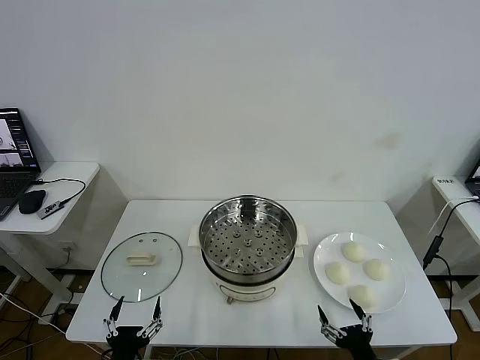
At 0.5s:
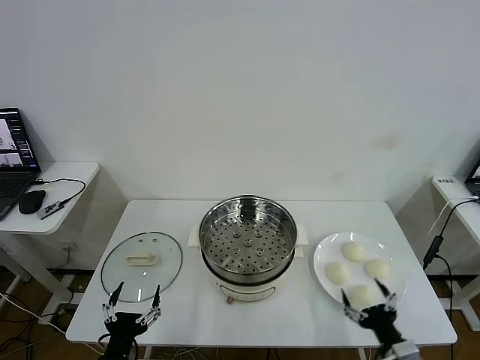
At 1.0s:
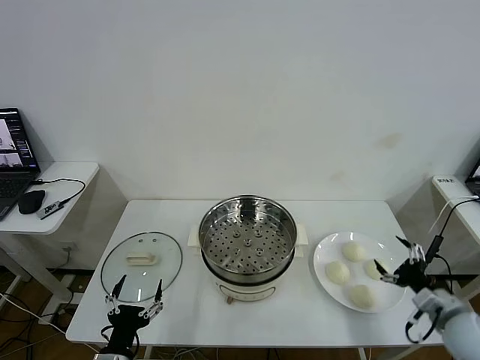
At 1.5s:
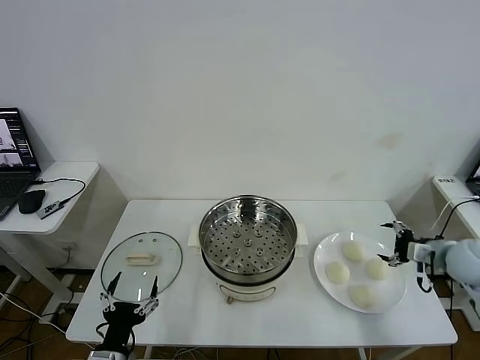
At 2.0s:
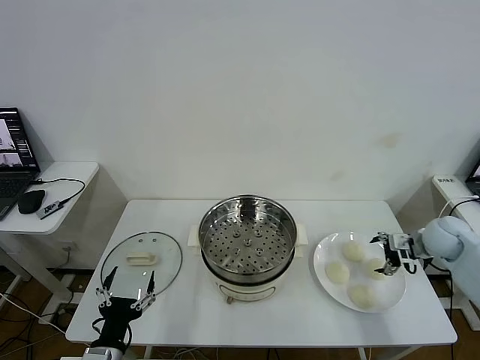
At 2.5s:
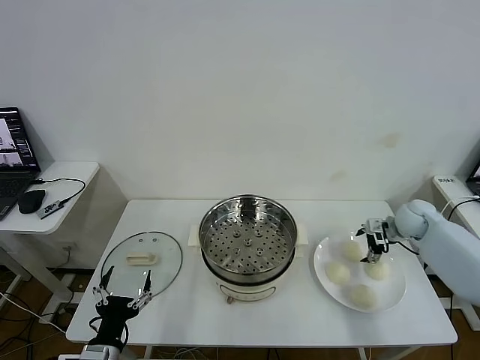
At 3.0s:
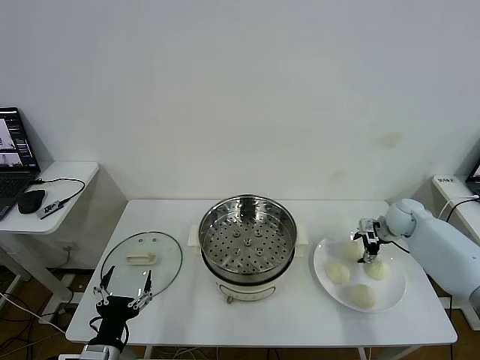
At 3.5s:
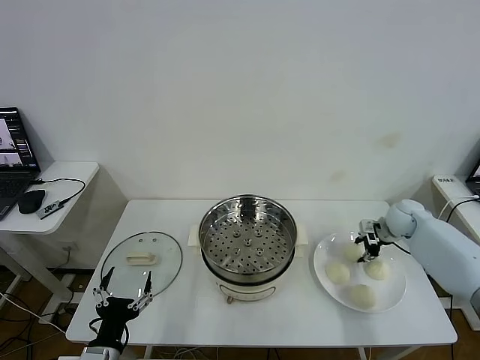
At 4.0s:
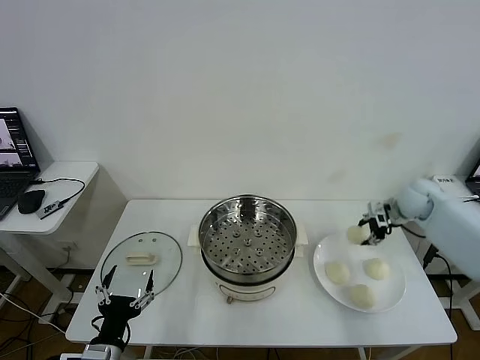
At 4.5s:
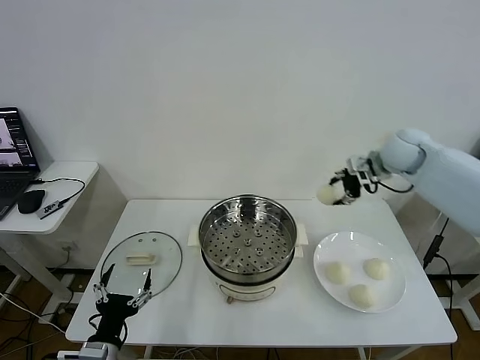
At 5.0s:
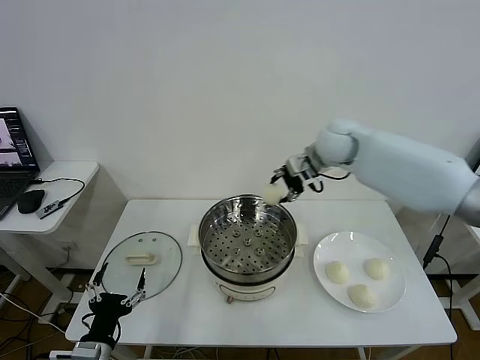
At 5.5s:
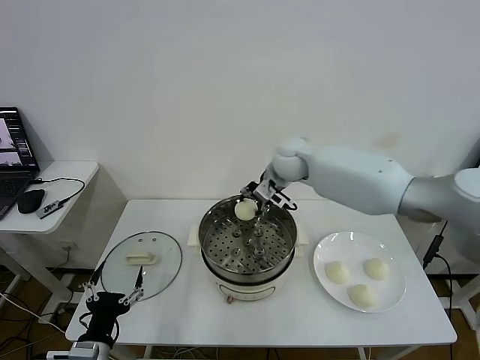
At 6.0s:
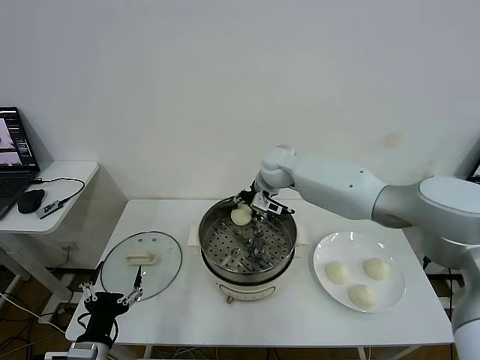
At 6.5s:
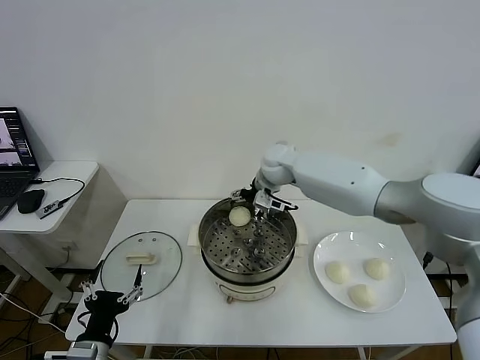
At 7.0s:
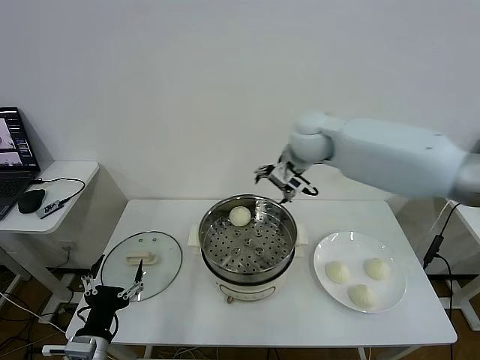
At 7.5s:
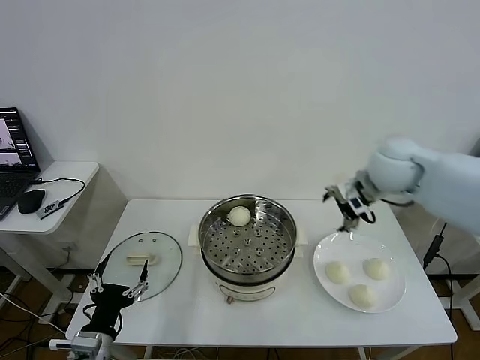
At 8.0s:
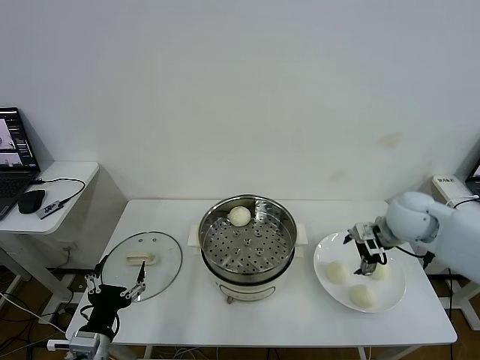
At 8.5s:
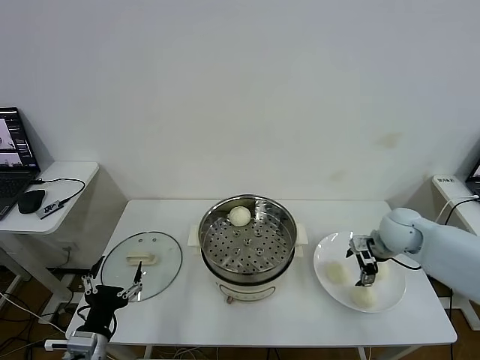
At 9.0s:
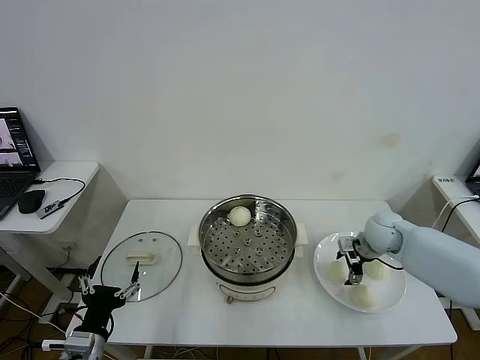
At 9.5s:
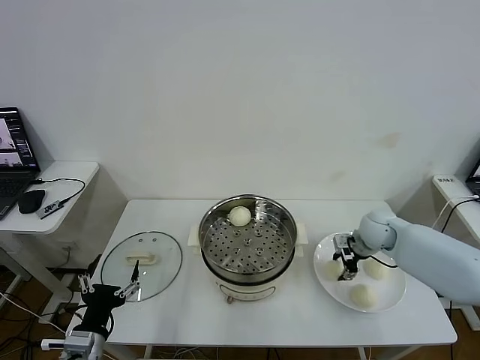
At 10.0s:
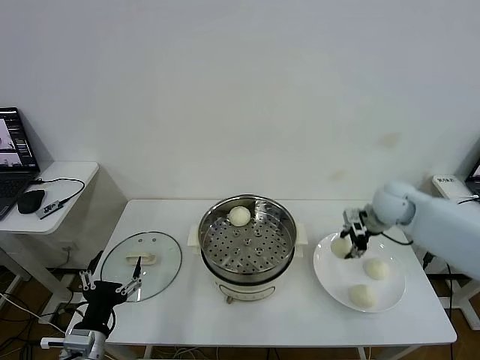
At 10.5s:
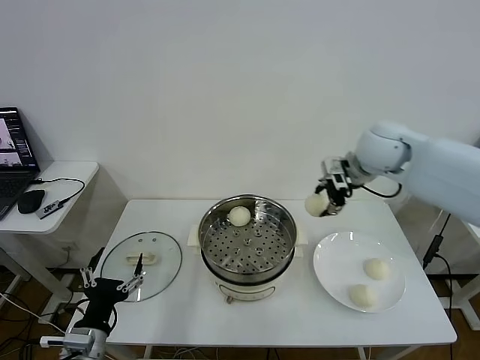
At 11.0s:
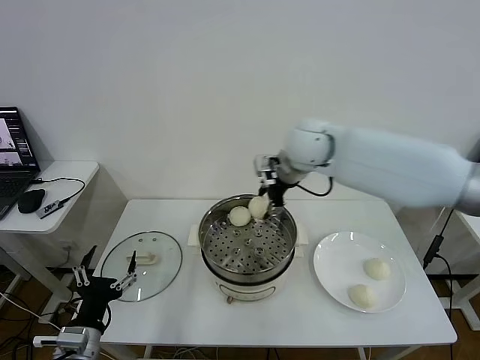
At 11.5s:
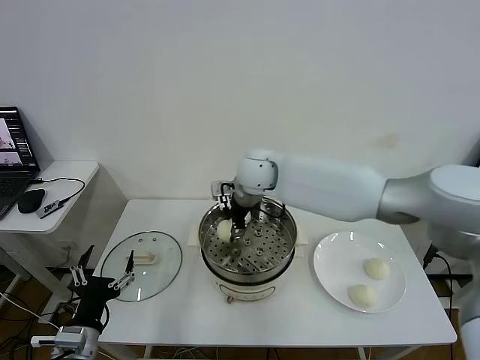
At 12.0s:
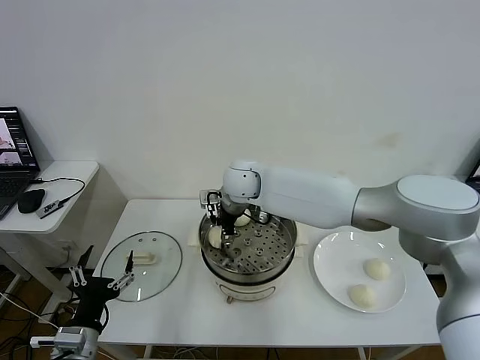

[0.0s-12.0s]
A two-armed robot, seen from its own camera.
Task of the whole recording: take steamed baozi put them in steamer then cover it.
Step, 0.0s to 3.0s: Grasp the baozi in the plate with right gripper.
Step, 3.5s to 6.0s: Place the baozi on the steamer with right gripper.
Step, 6.5s to 9.5s: Grasp the baozi in the plate with right gripper.
2.0s to 4.0s: The right gripper moves forward, some 10 cm, and closes.
4.0s to 6.0s: The right gripper shifts some 35 cm to the left.
6.0s to 8.0s: The right gripper moves to the right and backward, some 30 cm, and opens its fingers.
8.0s to 10.0s: The right gripper moves forward, about 5 cm, moves about 10 cm downward and comes back, and closes up.
10.0s to 12.0s: The right gripper travels to the left by about 35 cm.

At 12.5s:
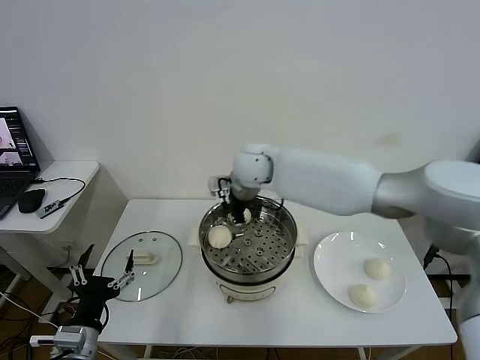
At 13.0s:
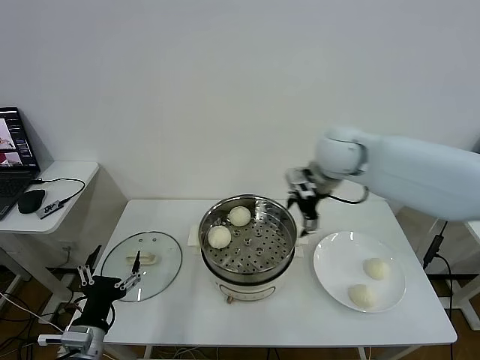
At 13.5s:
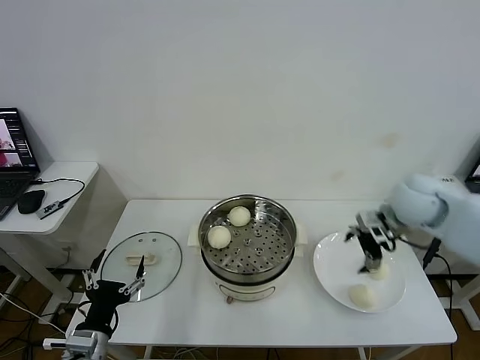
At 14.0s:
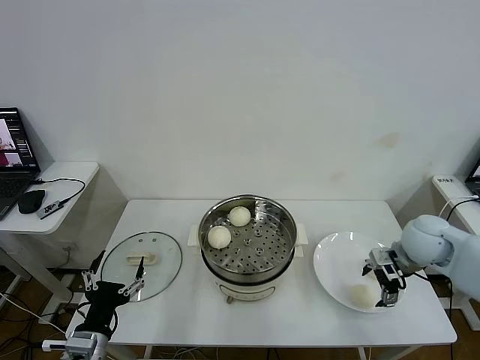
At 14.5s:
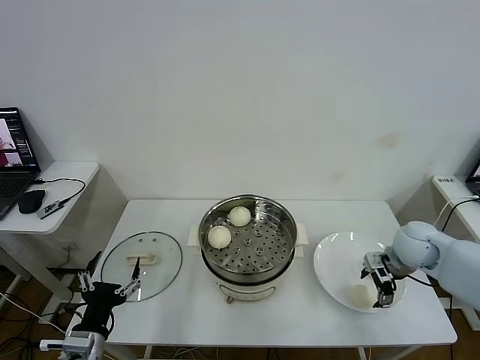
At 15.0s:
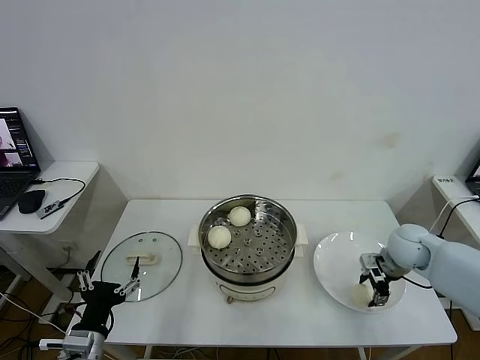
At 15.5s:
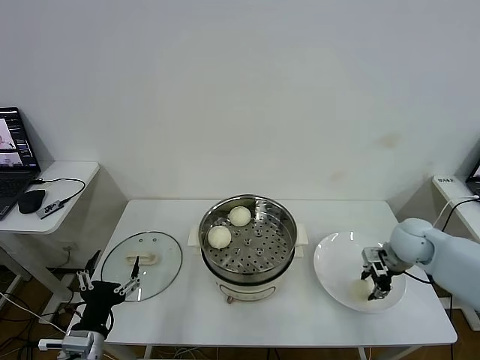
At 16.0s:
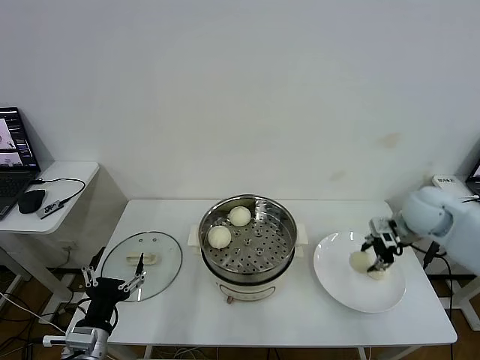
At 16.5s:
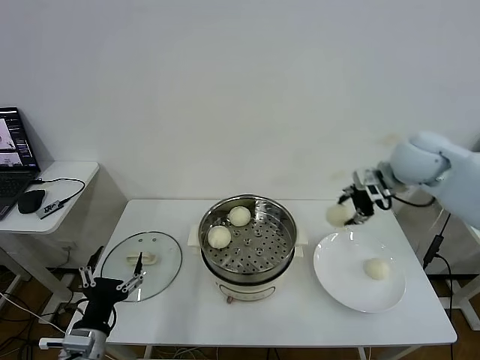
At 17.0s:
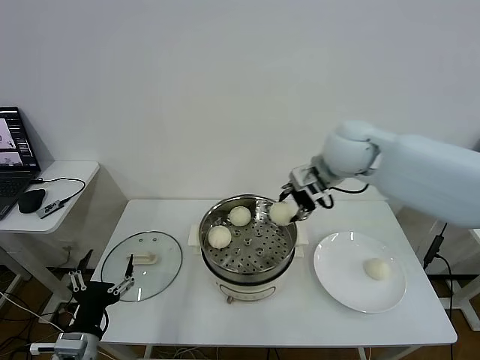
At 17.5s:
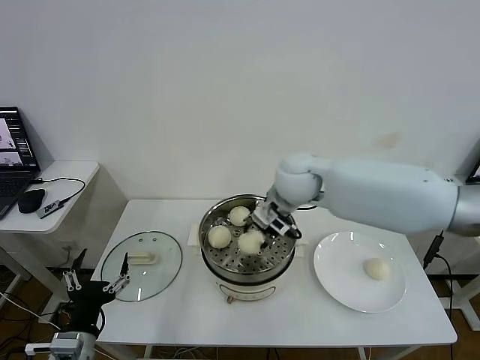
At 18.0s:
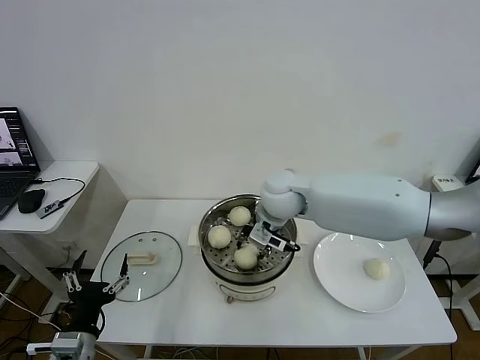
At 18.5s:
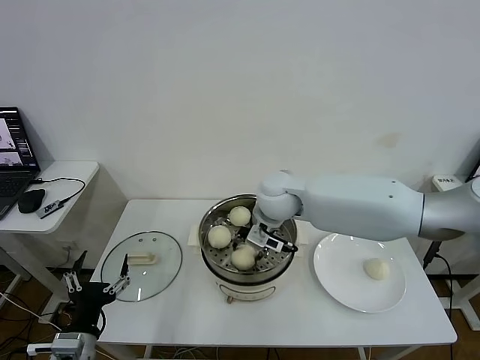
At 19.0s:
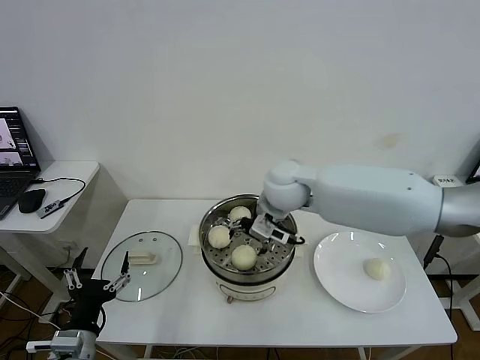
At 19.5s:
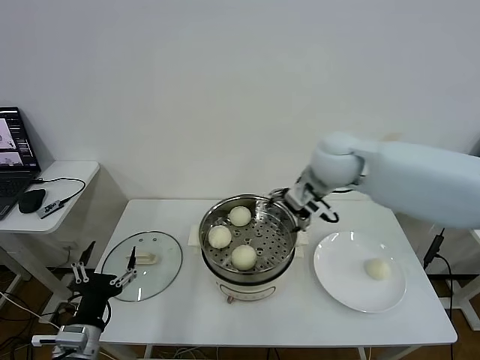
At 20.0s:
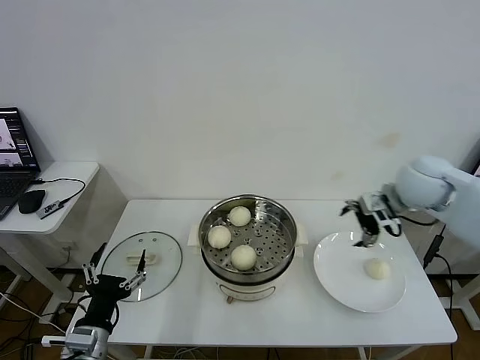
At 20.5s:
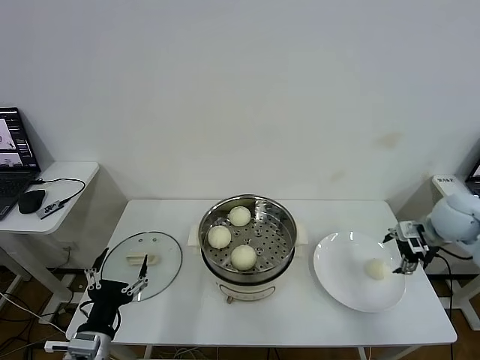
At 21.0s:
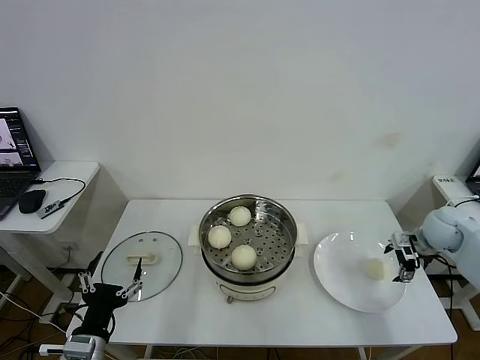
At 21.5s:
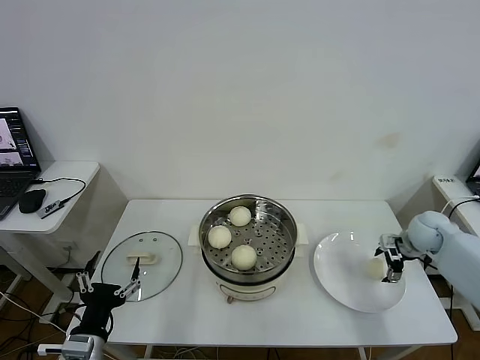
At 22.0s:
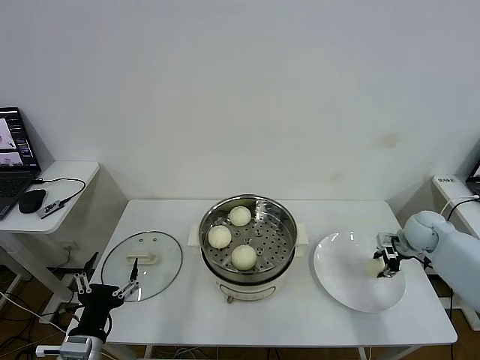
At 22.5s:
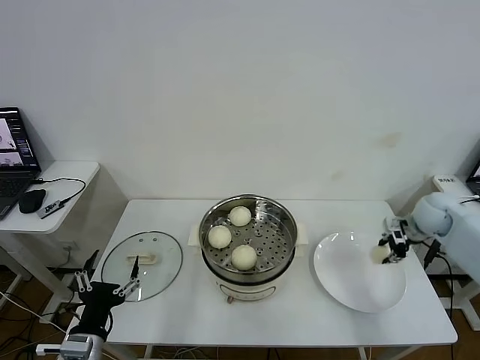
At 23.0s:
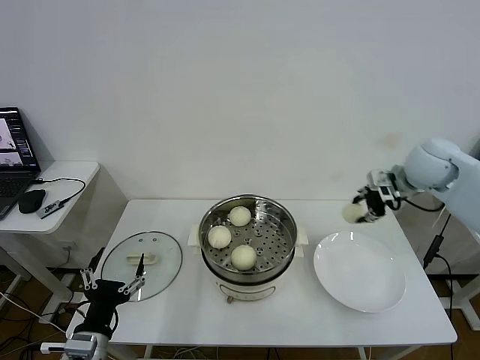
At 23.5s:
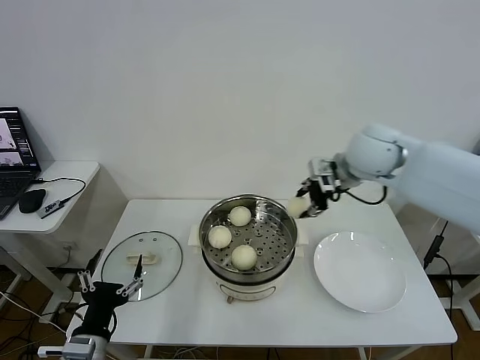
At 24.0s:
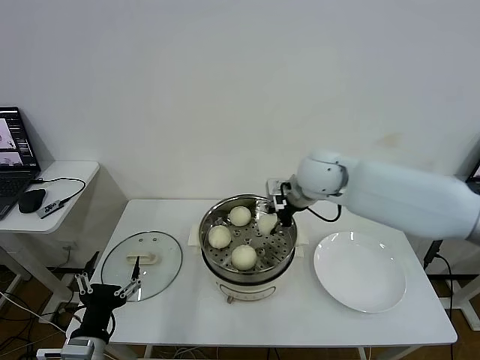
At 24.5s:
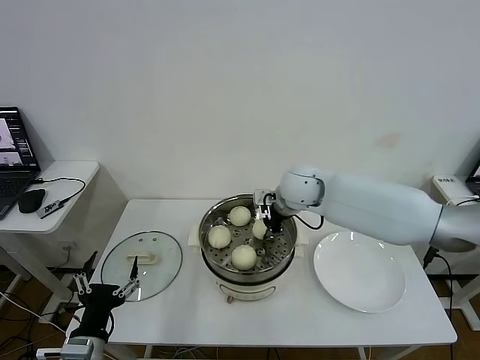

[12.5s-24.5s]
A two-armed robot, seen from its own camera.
Task of the whole recording: take steamed baozi put them in steamer then cover it.
Step, 12.5s to 15.0s: Grasp the baozi in the plate with right gripper.
Step, 15.5s to 18.5s: Place the baozi on the steamer with right gripper.
Step, 19.0s to 21.5s: Grasp the baozi in the plate with right gripper.
12.5s to 14.5s: The right gripper shifts about 35 cm to the right.
14.5s to 16.5s: The right gripper heads upward, covering about 20 cm, and closes.
16.5s to 18.5s: The right gripper is displaced to the left by some 25 cm.
18.5s to 20.5s: The right gripper travels to the right by roughly 35 cm, and opens.
20.5s to 22.5s: The right gripper moves forward, about 5 cm, and closes its fingers.
22.5s to 24.5s: The right gripper goes approximately 35 cm to the left.

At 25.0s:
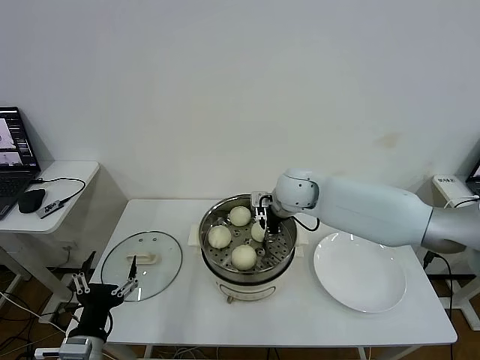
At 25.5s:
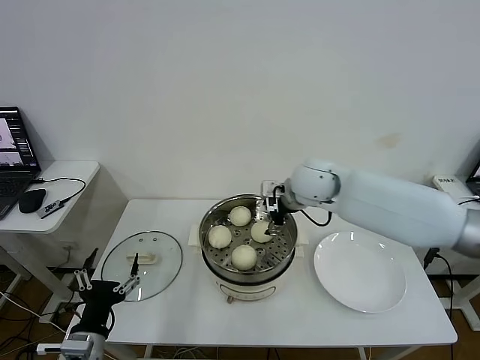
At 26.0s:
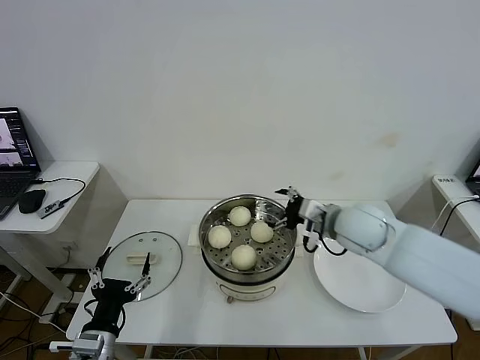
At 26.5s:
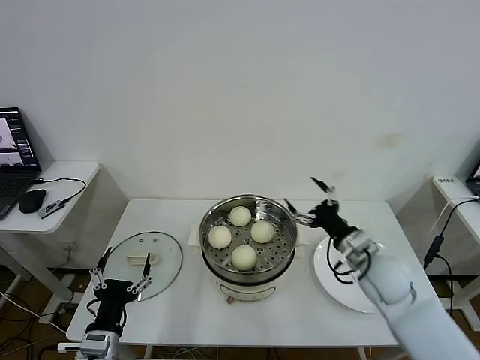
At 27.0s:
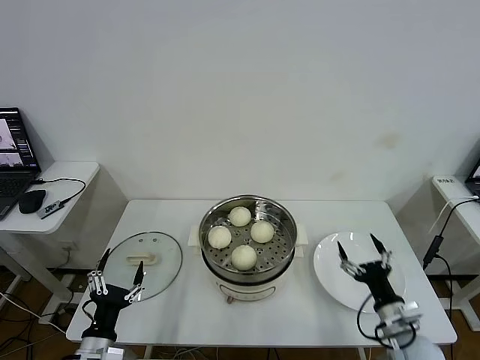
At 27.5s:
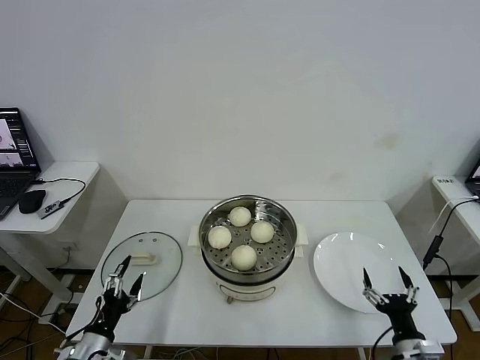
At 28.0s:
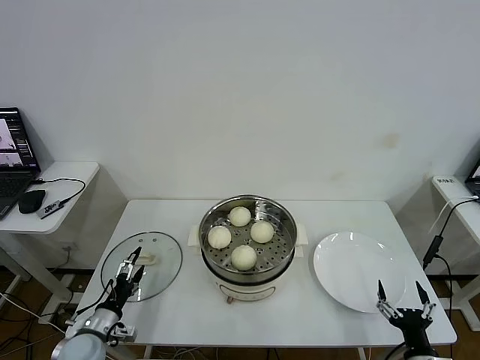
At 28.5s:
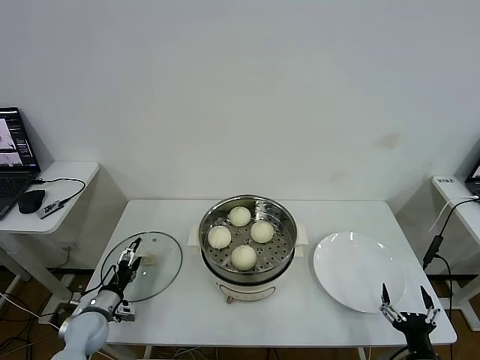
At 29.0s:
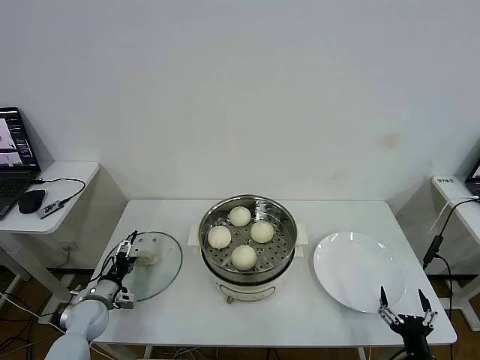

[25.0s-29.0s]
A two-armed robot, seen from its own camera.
Task of the whole recording: take steamed baozi put them in steamer then cover it.
25.0s to 27.0s: The right gripper moves backward, to the right and downward, roughly 40 cm, and opens. Meanwhile the left gripper goes some 5 cm downward.
27.0s to 29.0s: The left gripper shifts about 20 cm forward, to the left and downward. The right gripper shifts approximately 10 cm backward.
